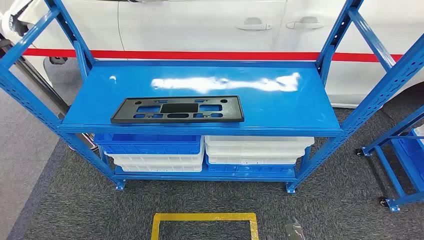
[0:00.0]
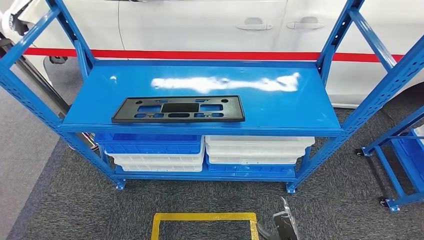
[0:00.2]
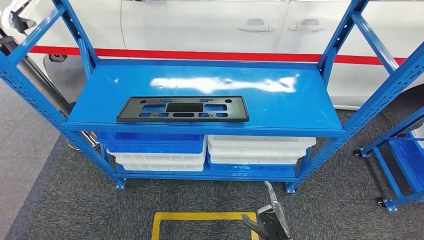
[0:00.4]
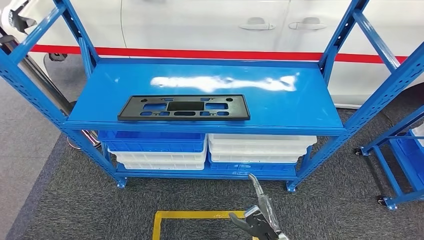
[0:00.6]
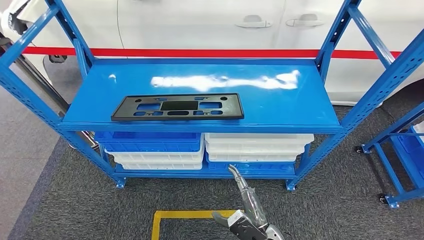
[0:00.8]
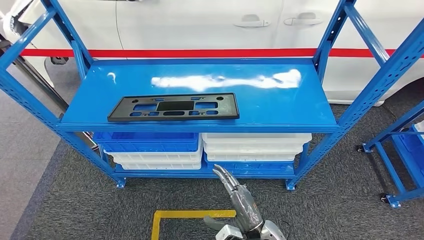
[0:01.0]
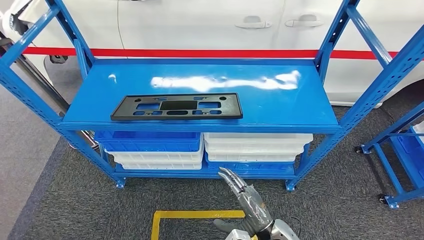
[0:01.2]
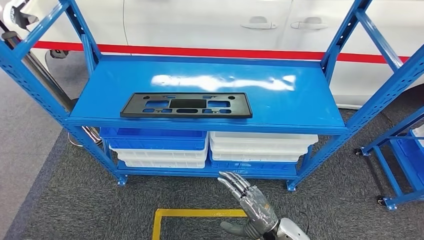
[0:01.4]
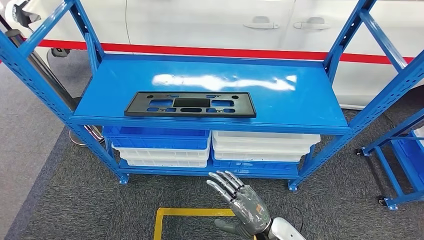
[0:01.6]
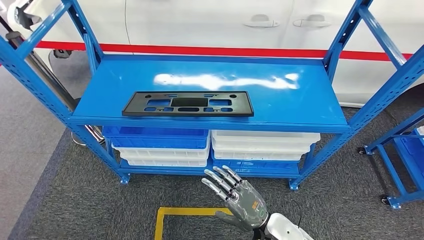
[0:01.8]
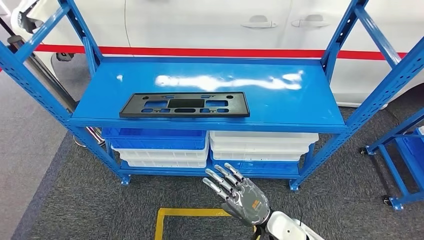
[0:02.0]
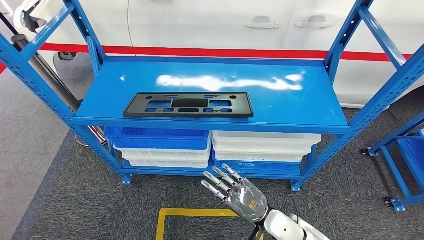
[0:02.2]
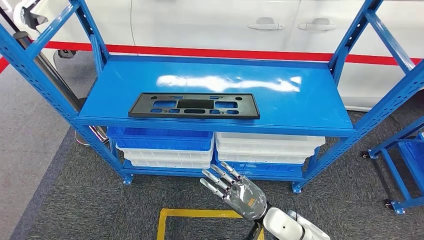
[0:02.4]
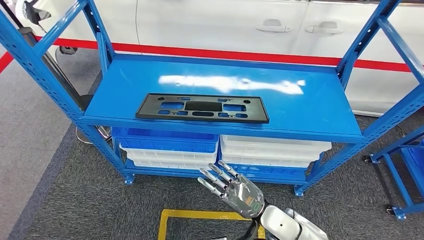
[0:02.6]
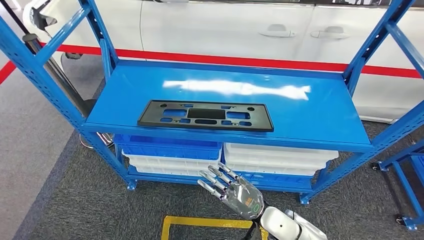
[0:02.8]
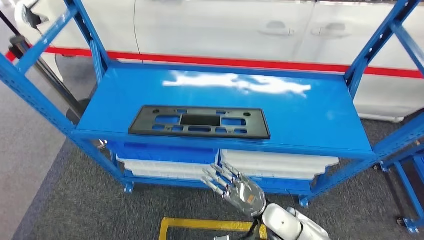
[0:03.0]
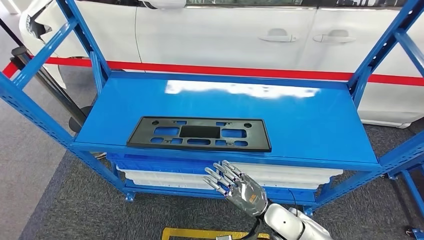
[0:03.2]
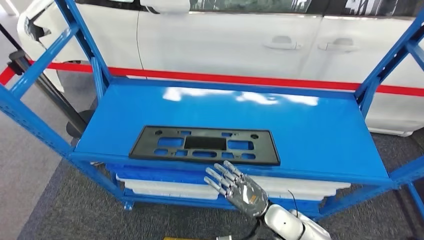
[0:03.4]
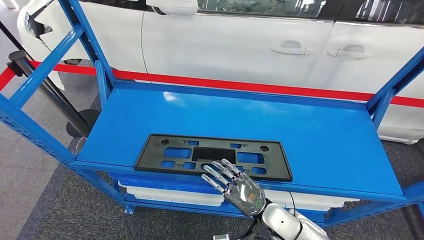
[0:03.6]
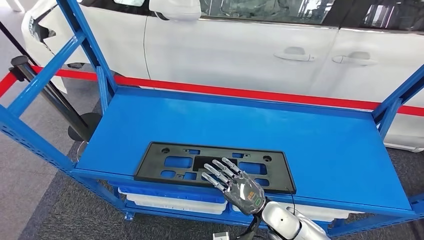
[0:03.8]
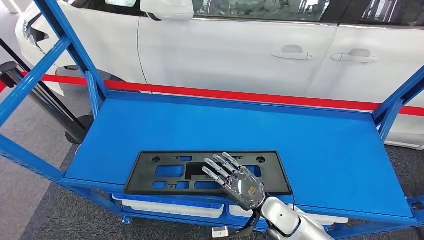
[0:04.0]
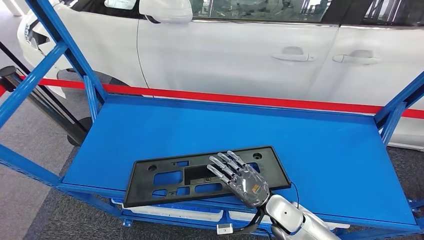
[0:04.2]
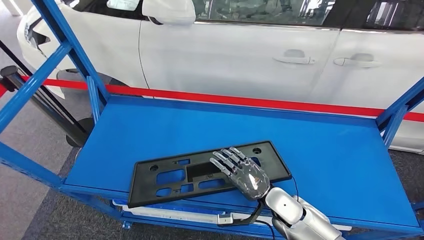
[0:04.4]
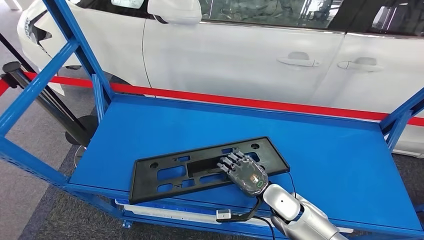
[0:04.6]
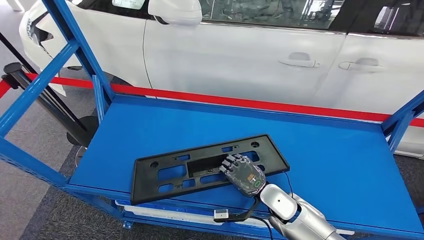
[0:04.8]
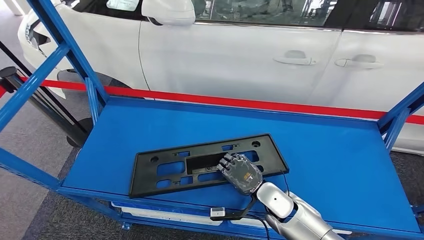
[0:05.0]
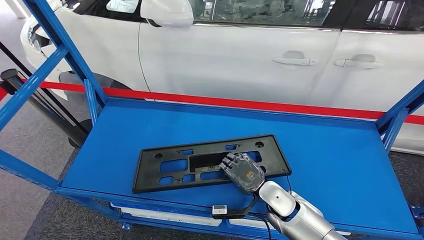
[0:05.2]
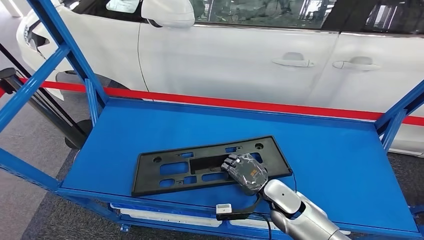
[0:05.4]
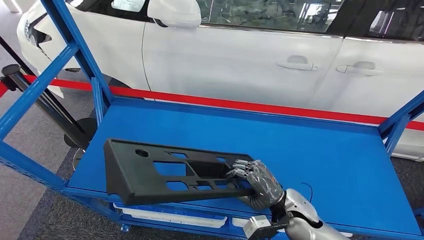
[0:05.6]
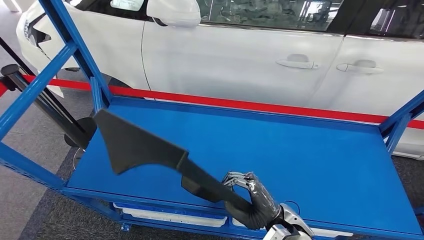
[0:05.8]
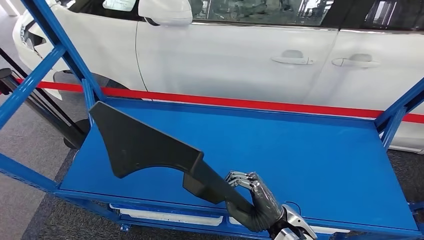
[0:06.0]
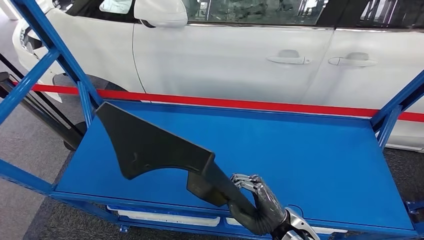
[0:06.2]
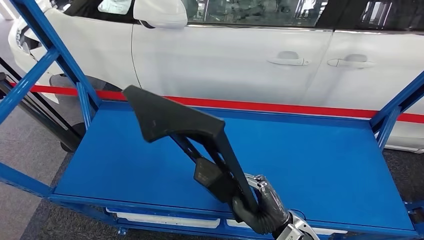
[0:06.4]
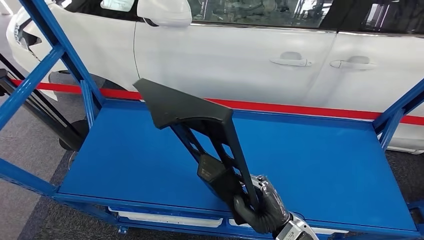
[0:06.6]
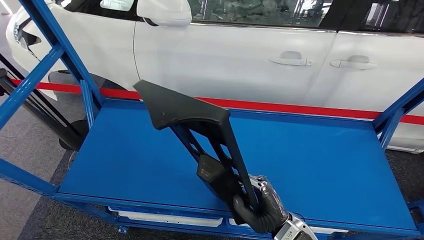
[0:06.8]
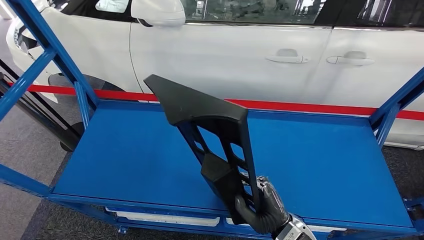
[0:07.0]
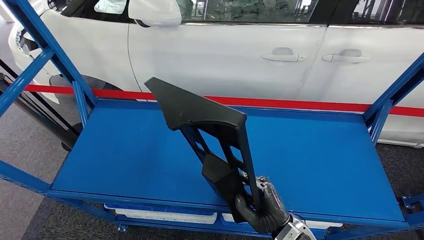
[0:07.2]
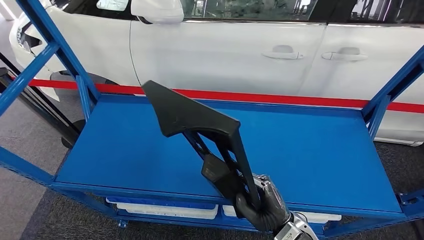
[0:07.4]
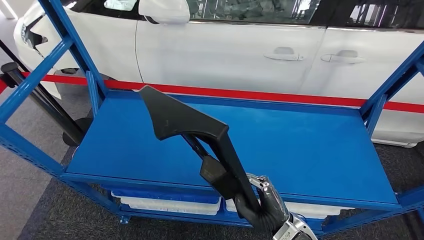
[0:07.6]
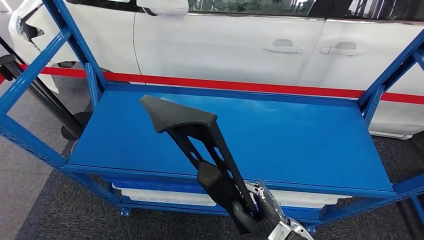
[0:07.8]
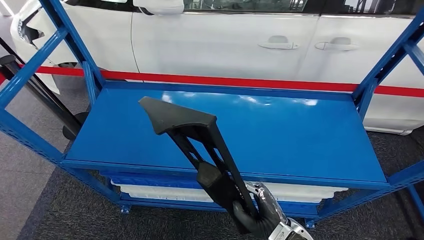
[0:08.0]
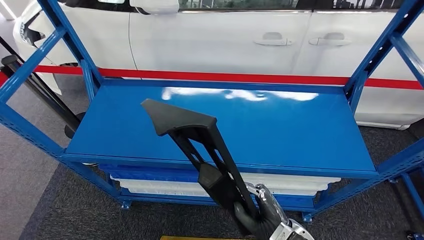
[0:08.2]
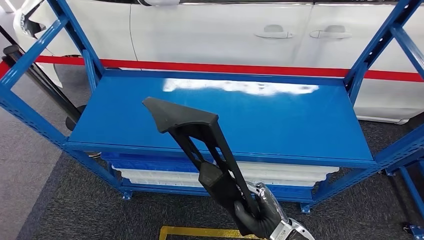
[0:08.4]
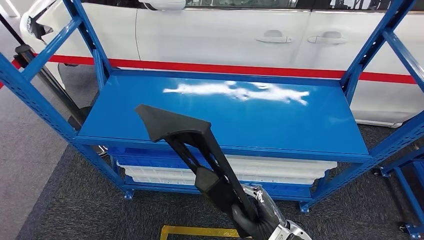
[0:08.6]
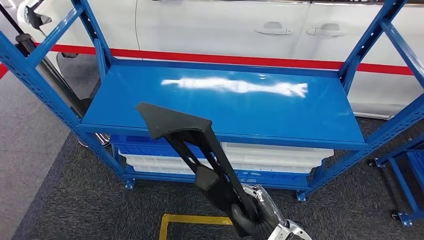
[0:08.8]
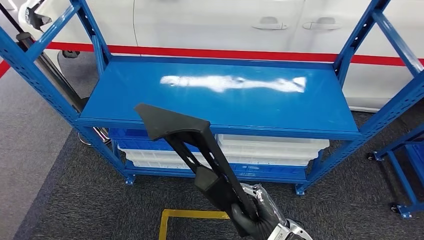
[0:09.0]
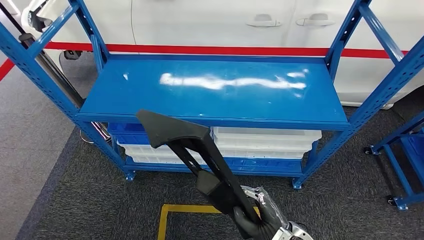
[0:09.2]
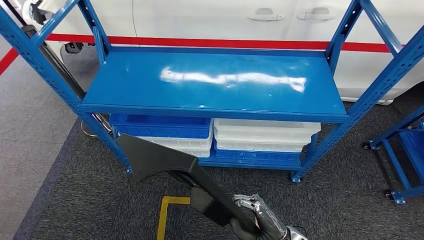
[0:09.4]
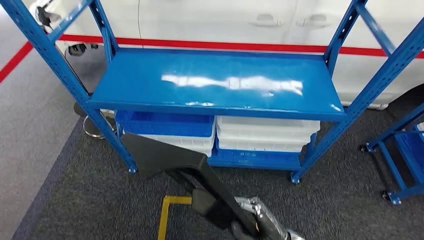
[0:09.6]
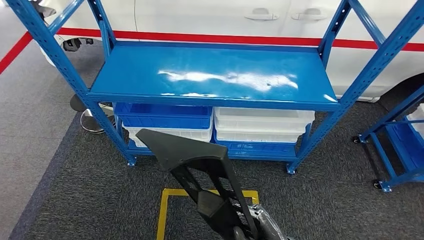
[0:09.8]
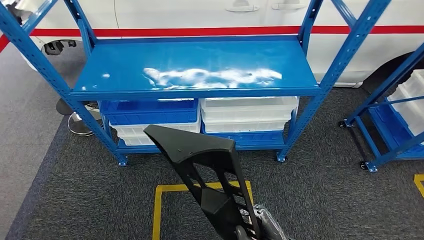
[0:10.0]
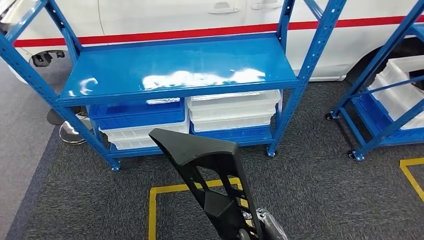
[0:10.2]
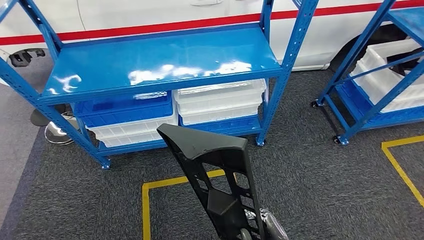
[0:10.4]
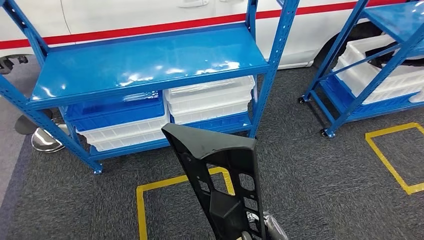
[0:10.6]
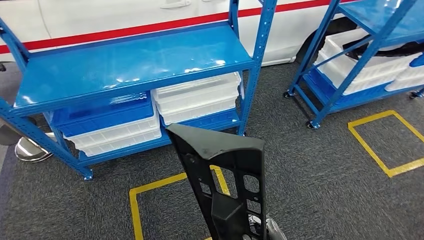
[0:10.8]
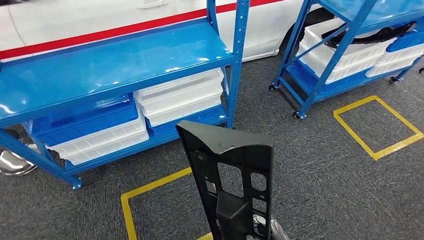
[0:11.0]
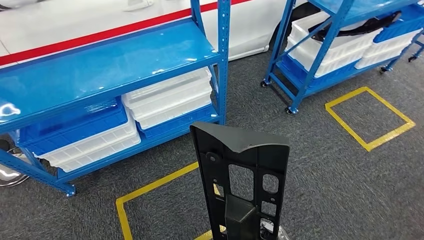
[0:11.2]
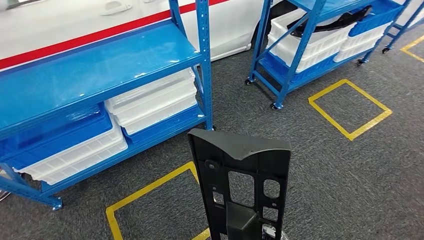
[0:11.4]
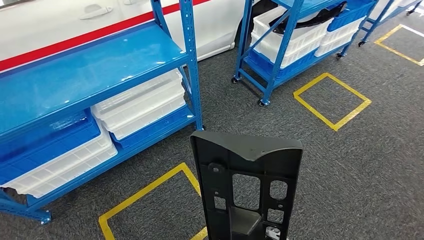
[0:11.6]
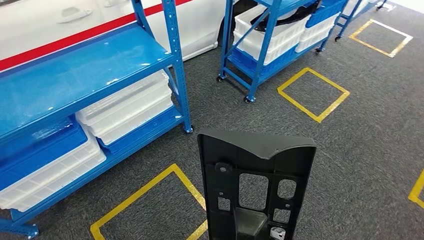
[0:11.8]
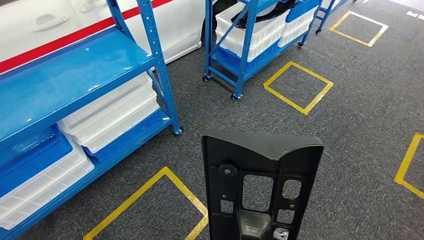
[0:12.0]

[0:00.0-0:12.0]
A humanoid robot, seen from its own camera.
Step, 0:00.0 to 0:08.4: Pick up the large material from the shelf.

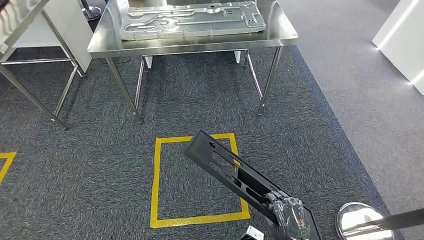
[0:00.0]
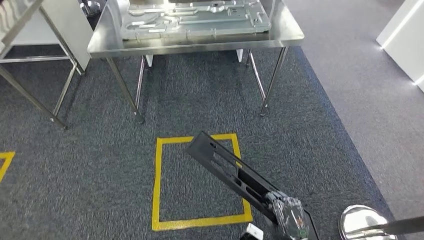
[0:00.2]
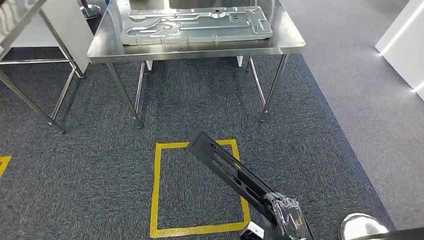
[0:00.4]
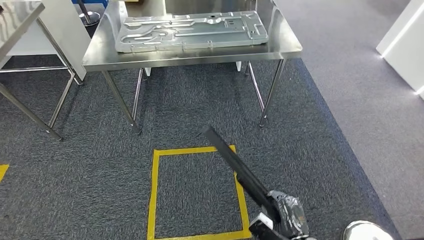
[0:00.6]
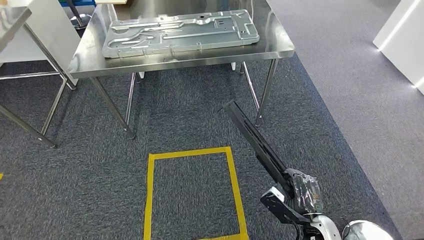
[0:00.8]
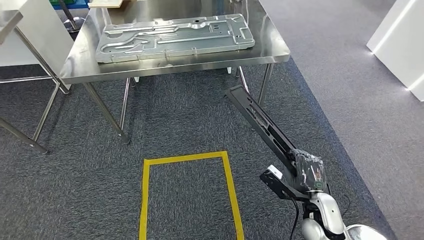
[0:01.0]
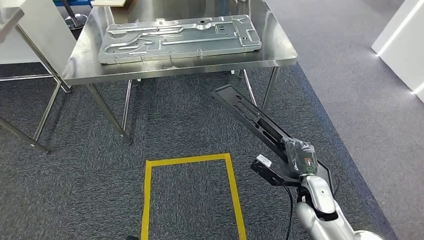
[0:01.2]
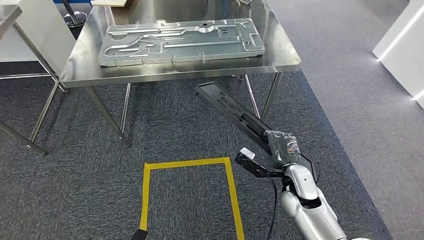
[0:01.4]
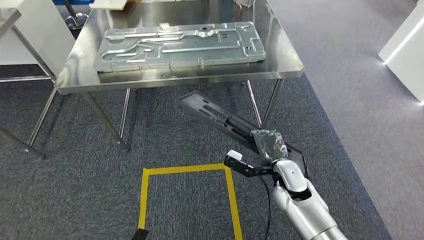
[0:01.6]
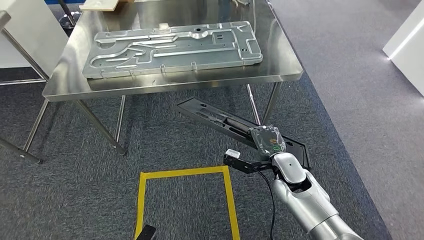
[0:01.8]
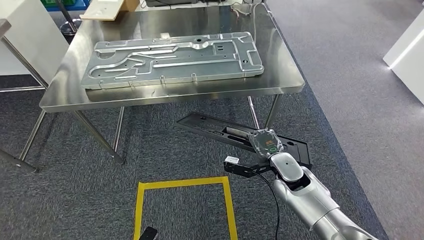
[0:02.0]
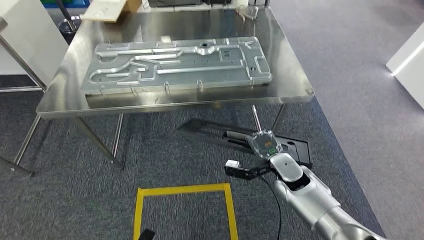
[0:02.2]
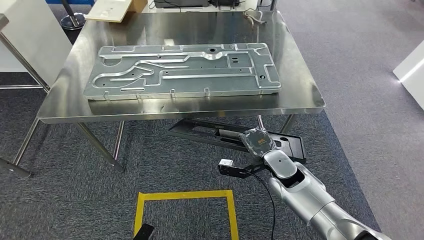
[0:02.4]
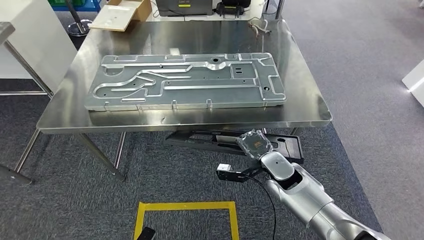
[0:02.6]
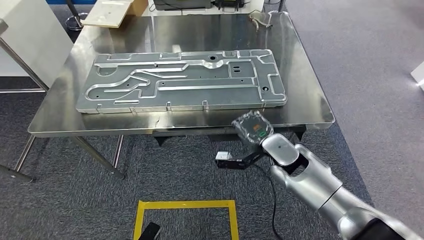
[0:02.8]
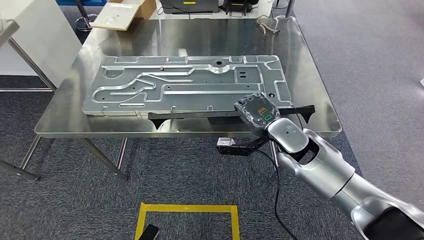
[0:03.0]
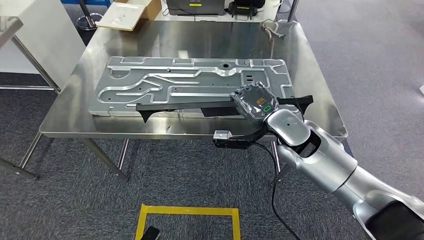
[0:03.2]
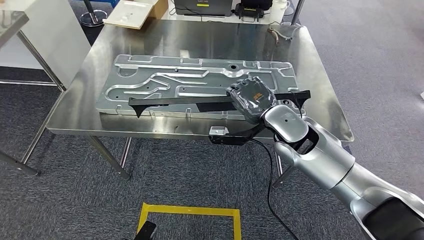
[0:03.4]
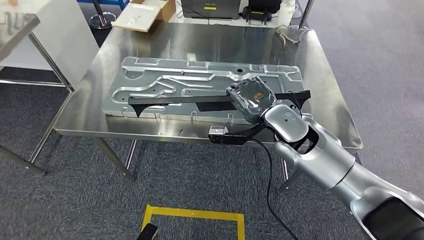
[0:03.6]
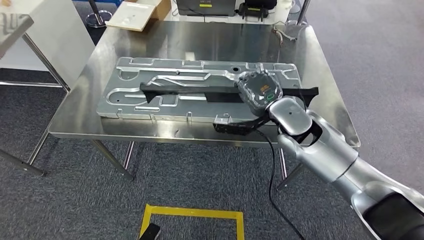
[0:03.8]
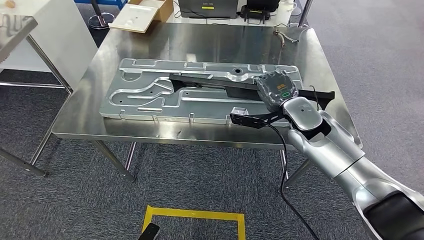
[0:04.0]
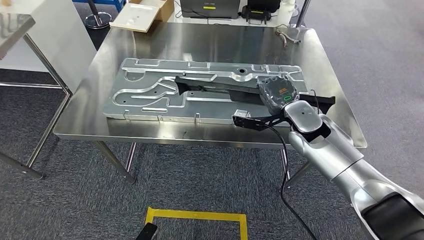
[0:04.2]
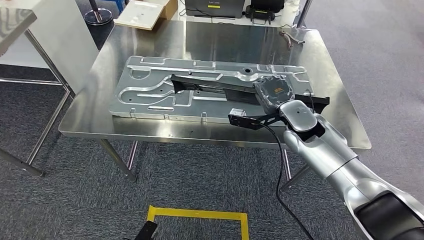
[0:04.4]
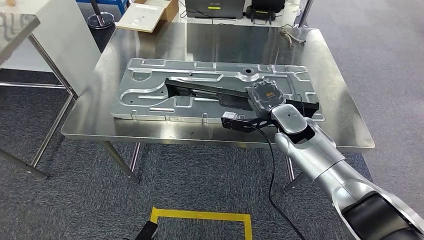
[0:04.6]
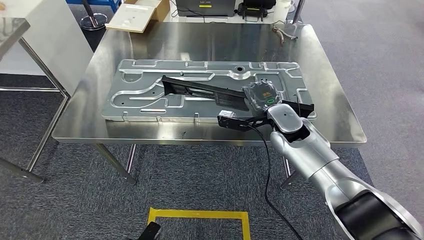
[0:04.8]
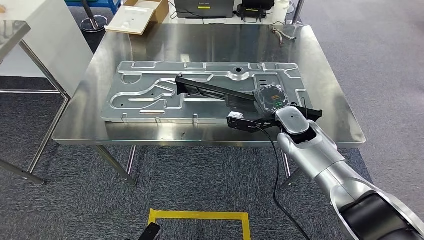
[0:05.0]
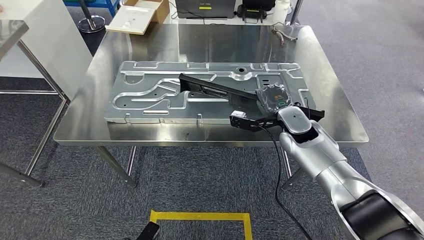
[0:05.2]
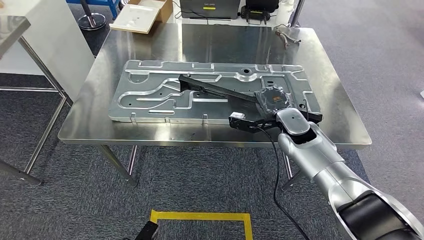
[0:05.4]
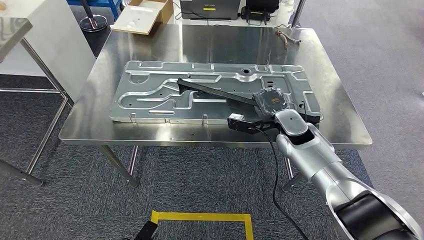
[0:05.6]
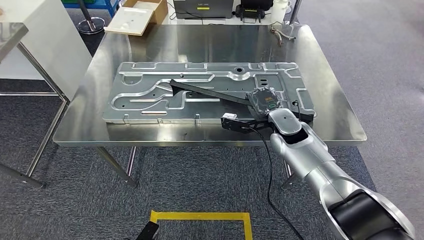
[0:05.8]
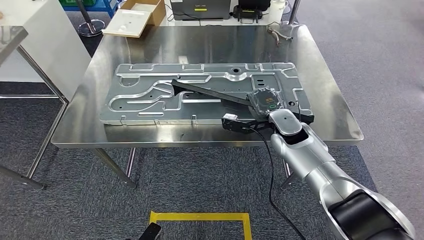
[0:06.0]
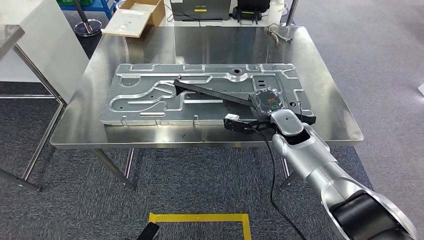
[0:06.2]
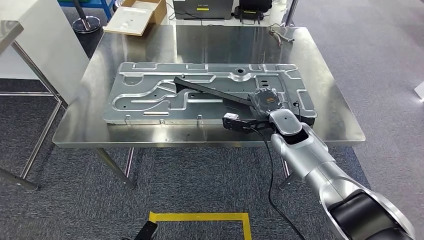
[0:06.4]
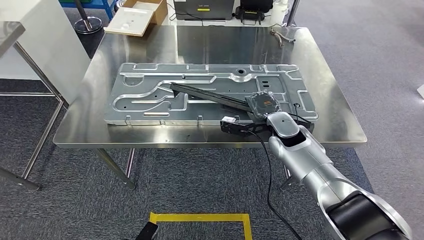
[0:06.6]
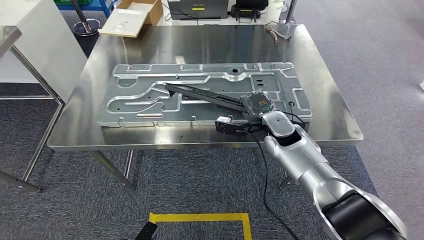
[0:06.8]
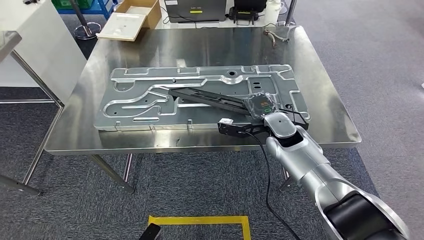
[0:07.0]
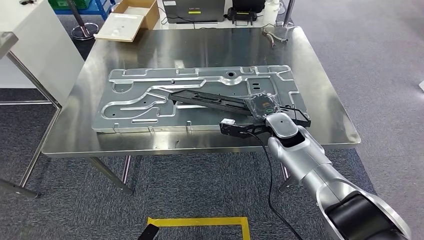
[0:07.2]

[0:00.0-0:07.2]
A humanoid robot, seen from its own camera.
Step, 0:00.0 to 0:02.6: Move the large material to the workbench.
